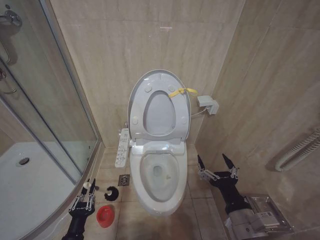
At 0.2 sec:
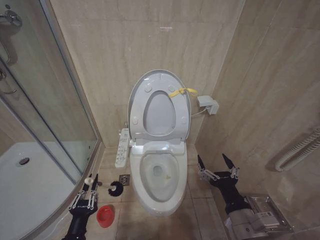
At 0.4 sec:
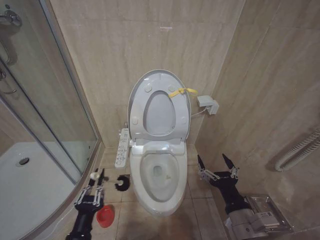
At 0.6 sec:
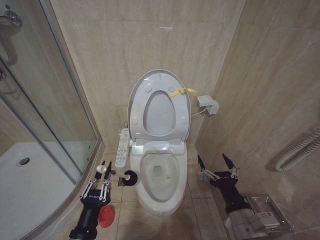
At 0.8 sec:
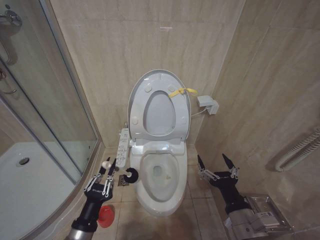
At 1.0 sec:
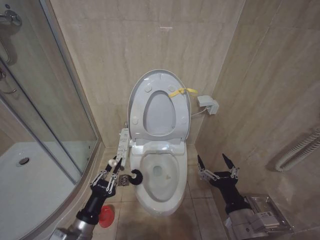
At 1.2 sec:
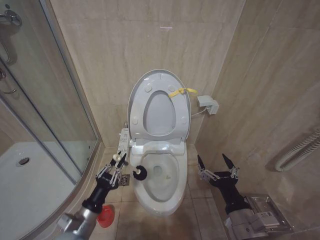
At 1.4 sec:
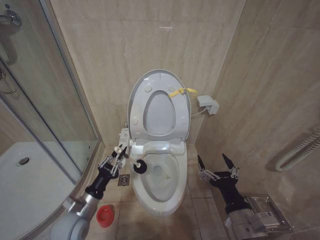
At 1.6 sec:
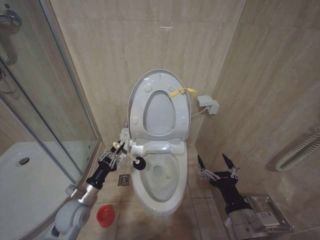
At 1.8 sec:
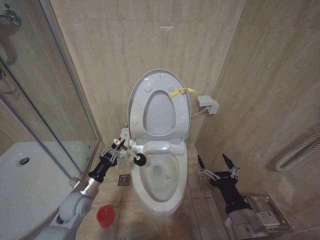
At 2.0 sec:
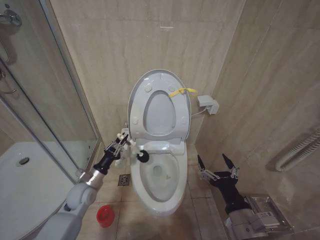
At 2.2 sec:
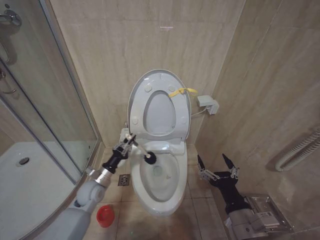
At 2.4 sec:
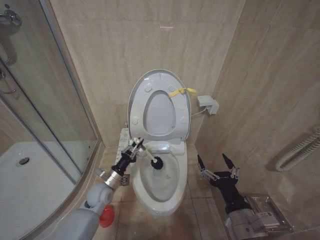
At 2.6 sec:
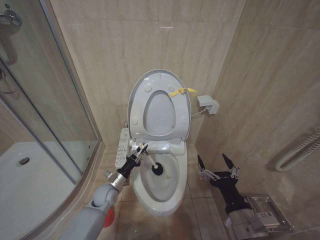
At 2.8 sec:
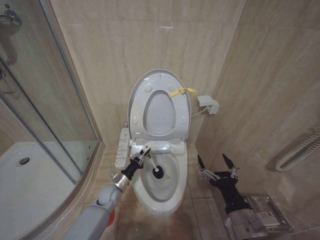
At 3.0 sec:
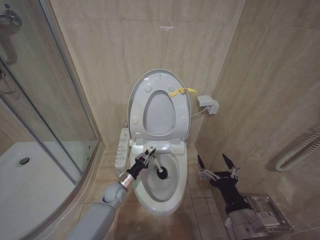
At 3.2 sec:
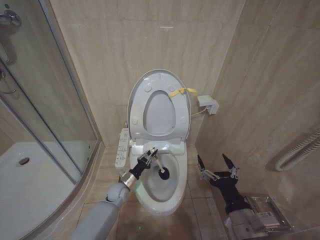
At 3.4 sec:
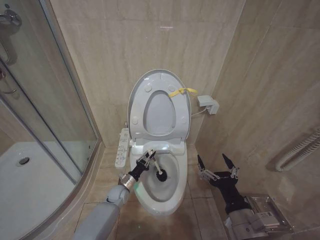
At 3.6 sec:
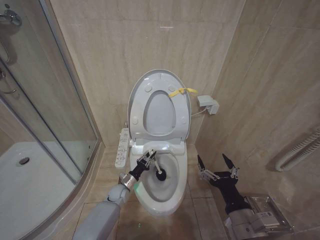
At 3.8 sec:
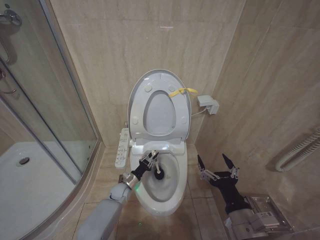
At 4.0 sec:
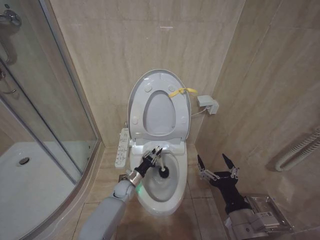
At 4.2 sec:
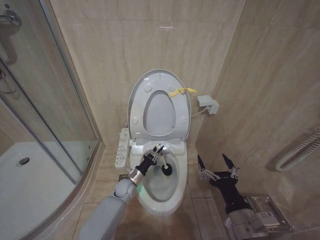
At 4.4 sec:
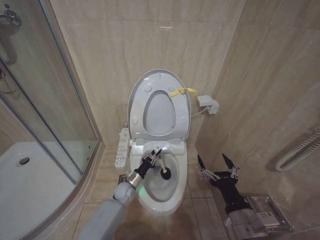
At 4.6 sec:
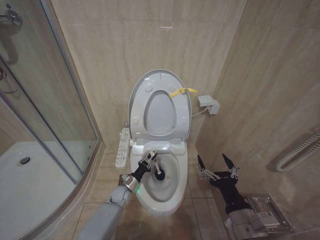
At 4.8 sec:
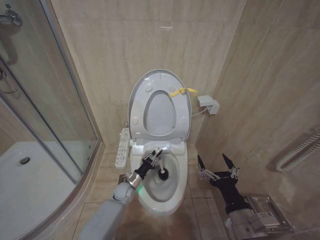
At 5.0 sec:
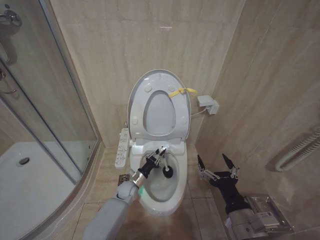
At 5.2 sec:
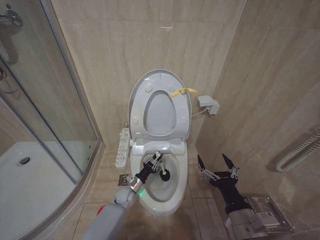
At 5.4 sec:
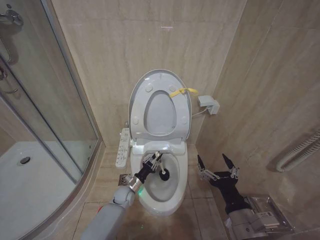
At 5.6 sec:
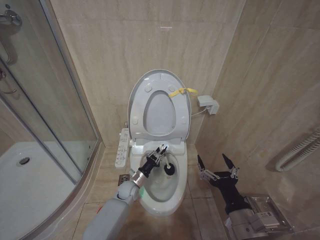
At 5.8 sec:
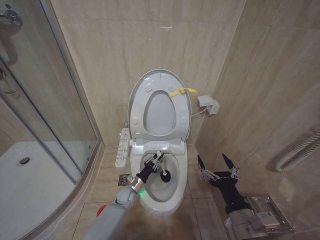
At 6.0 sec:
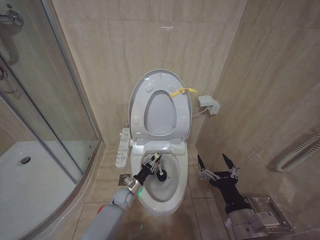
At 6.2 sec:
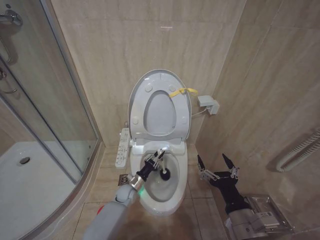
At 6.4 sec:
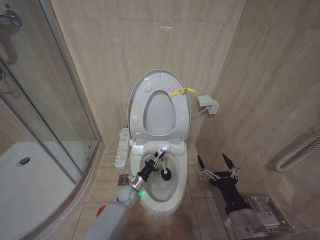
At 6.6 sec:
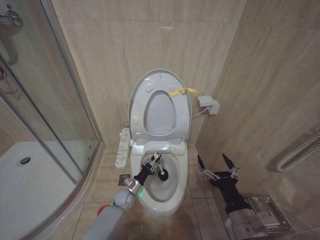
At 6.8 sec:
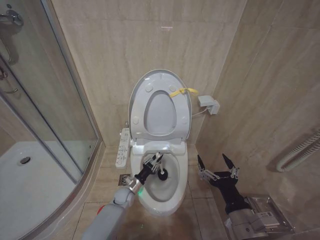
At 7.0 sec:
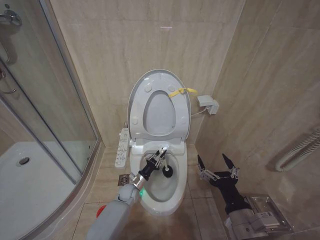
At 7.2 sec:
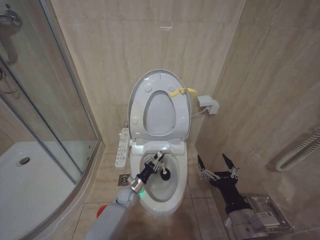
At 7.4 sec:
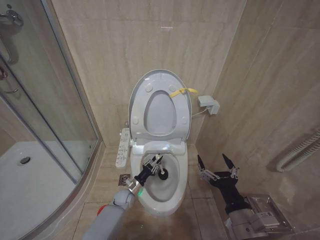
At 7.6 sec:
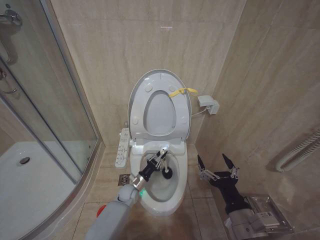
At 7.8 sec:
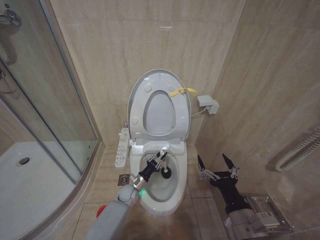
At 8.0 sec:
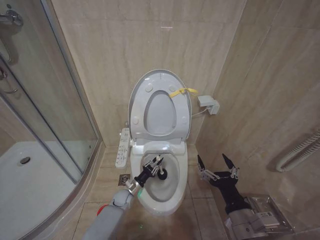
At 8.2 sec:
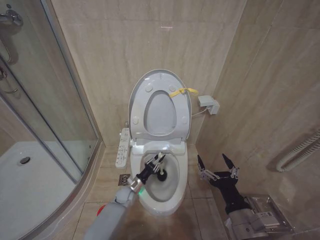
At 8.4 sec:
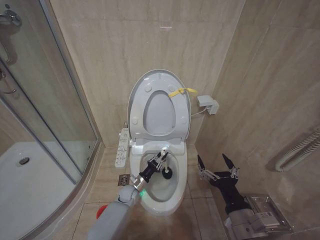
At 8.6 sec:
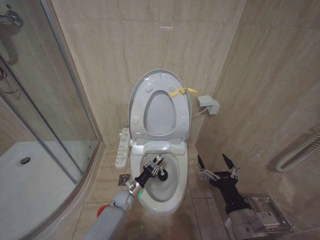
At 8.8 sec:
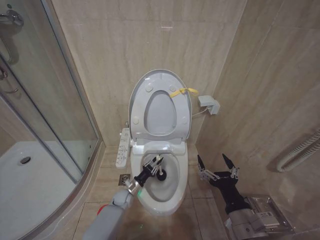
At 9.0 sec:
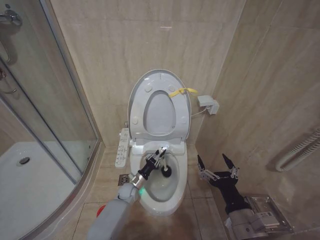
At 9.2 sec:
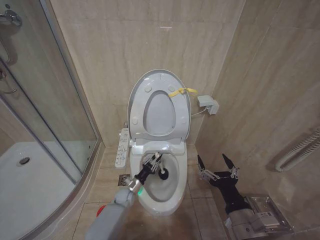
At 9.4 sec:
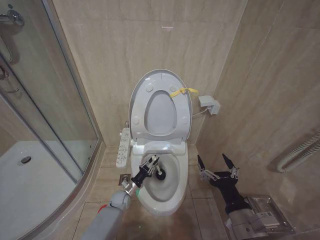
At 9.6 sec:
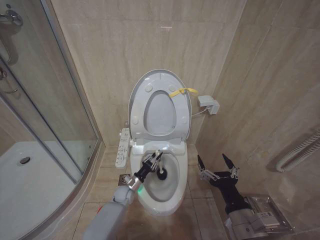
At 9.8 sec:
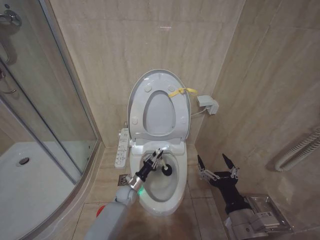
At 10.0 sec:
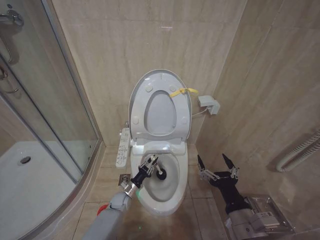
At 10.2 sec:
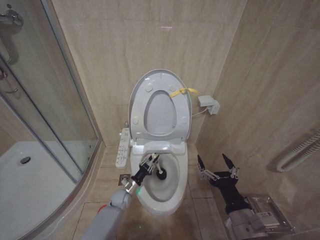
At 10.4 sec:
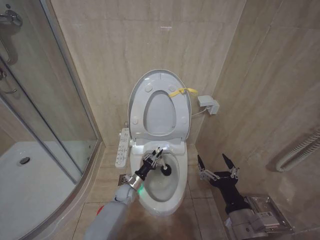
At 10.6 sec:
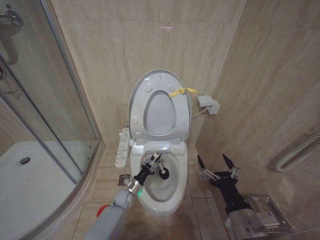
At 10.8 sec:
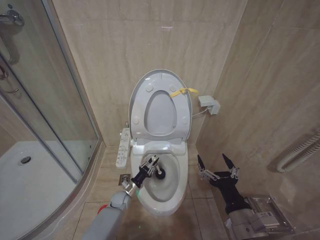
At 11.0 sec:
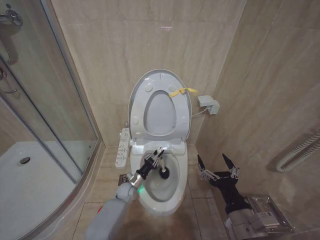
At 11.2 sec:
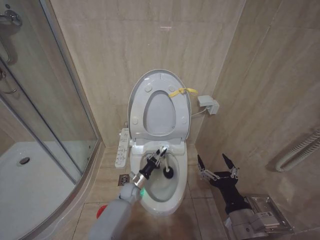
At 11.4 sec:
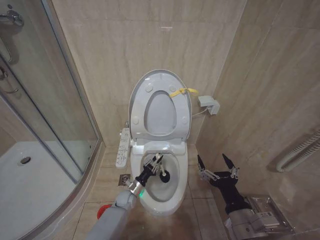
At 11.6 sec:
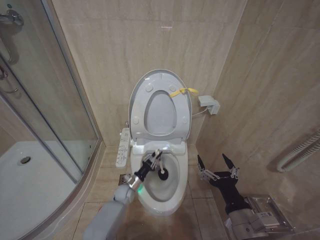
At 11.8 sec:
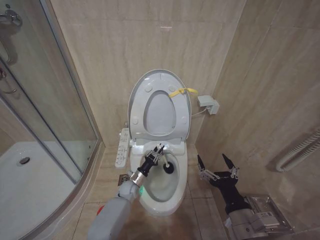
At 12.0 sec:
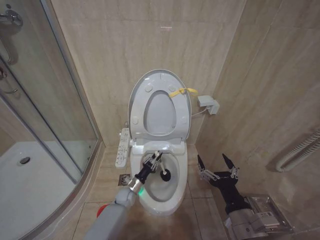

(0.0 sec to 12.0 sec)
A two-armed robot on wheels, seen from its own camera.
Task of the whole recording: Open the toilet lid, clean the toilet bowl with a toilet brush, close the toilet lid, and flush.
0.0 sec - 1.6 sec: The left gripper shifts some 15 cm forward and upward.
1.6 sec - 3.0 sec: The left gripper goes approximately 20 cm forward, downward and to the right.
3.0 sec - 4.4 sec: The left gripper moves approximately 5 cm.
4.4 sec - 6.0 sec: The left gripper moves up and down over about 5 cm, changing direction 2 times.
6.0 sec - 7.6 sec: The grippers stay close to where they were, moving slightly.

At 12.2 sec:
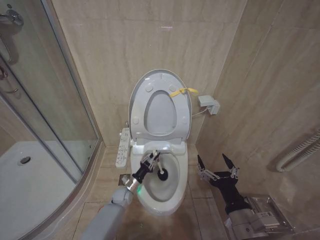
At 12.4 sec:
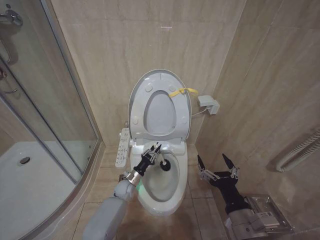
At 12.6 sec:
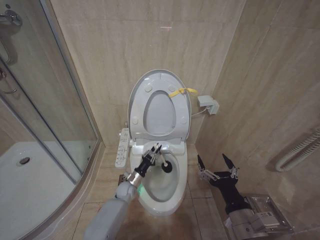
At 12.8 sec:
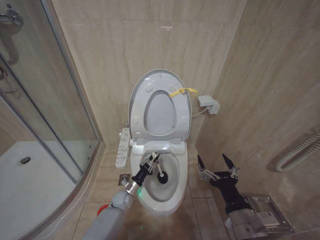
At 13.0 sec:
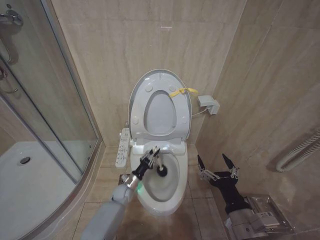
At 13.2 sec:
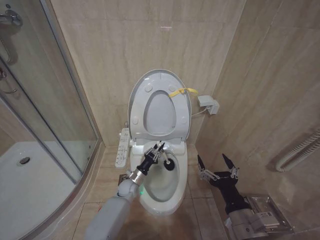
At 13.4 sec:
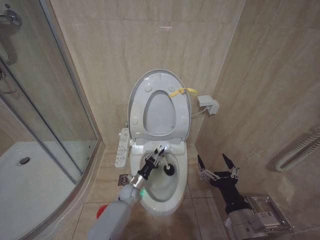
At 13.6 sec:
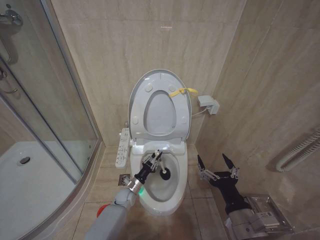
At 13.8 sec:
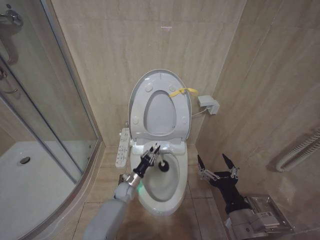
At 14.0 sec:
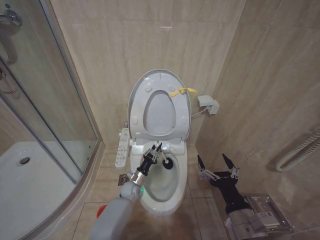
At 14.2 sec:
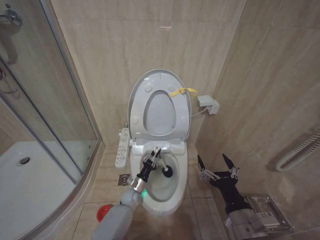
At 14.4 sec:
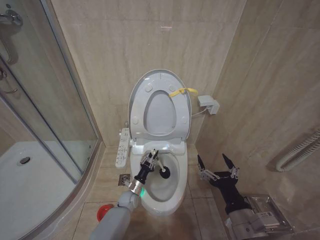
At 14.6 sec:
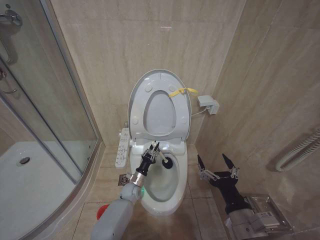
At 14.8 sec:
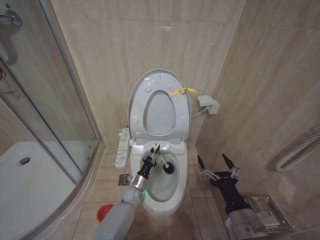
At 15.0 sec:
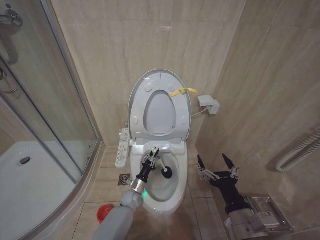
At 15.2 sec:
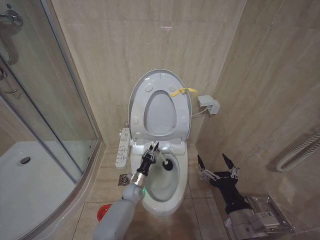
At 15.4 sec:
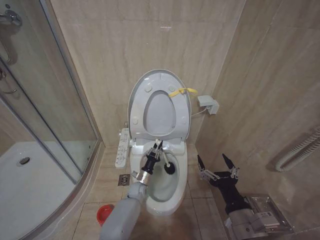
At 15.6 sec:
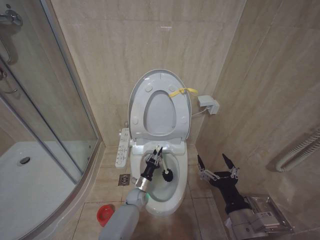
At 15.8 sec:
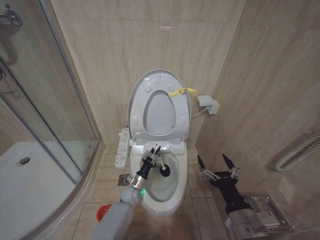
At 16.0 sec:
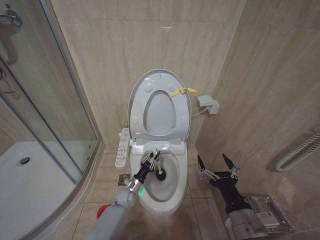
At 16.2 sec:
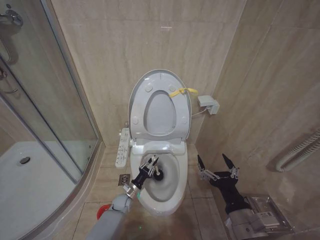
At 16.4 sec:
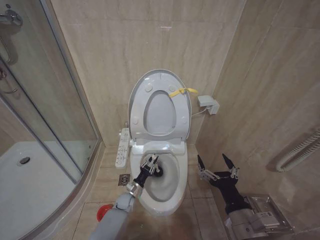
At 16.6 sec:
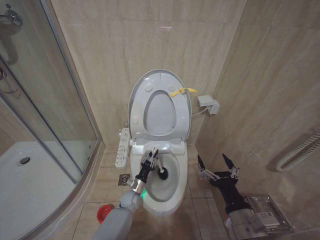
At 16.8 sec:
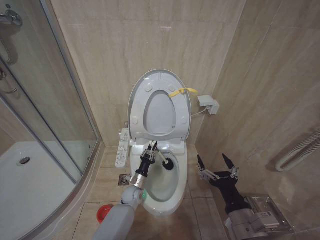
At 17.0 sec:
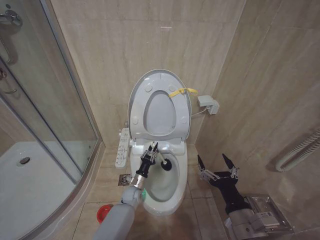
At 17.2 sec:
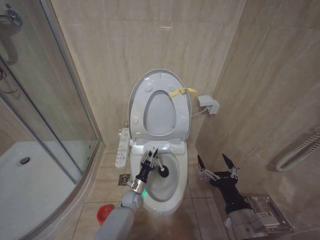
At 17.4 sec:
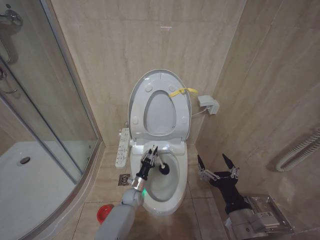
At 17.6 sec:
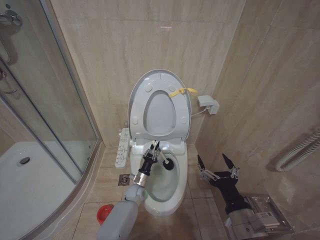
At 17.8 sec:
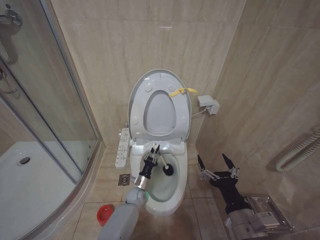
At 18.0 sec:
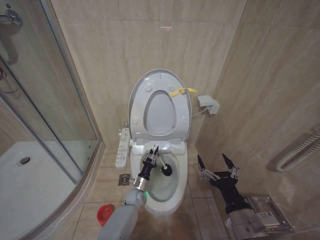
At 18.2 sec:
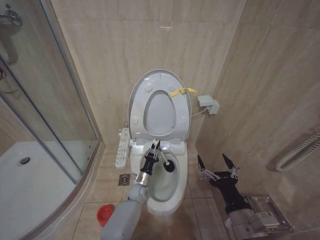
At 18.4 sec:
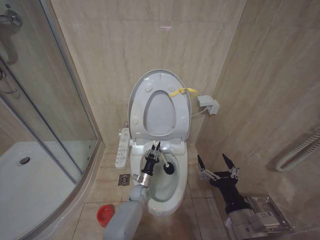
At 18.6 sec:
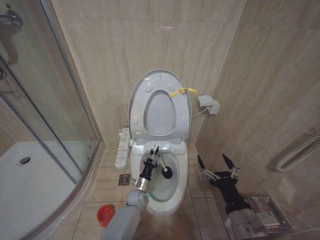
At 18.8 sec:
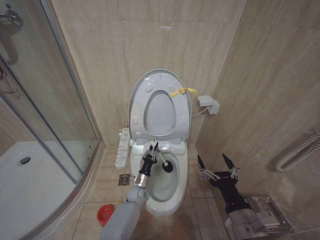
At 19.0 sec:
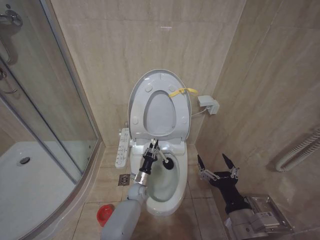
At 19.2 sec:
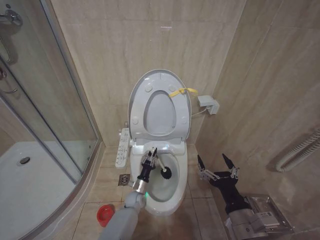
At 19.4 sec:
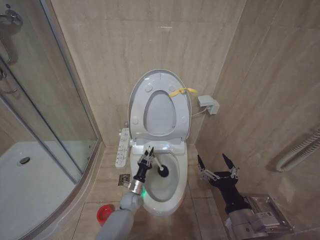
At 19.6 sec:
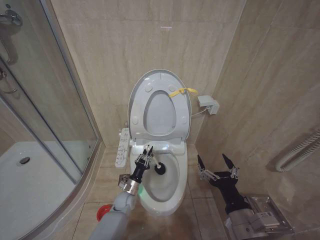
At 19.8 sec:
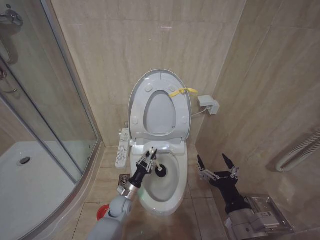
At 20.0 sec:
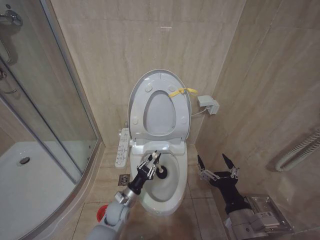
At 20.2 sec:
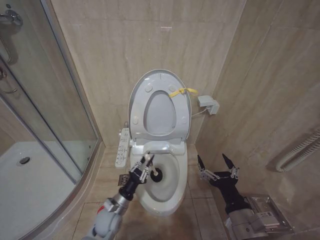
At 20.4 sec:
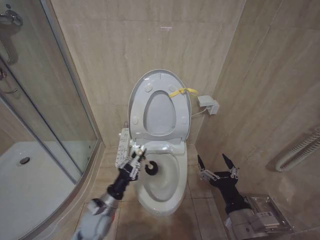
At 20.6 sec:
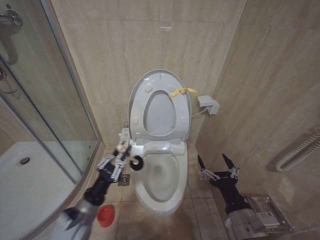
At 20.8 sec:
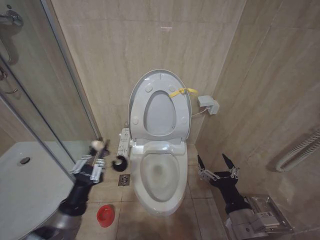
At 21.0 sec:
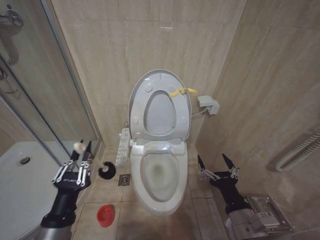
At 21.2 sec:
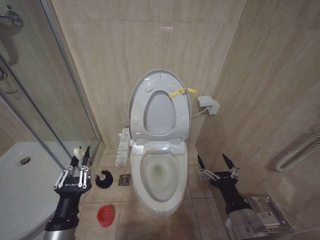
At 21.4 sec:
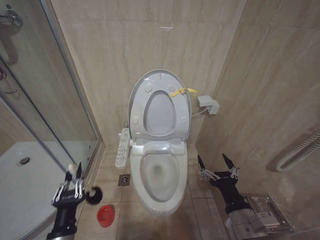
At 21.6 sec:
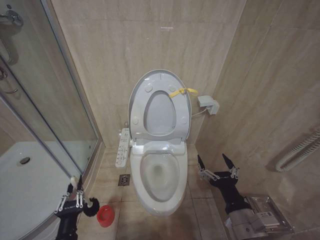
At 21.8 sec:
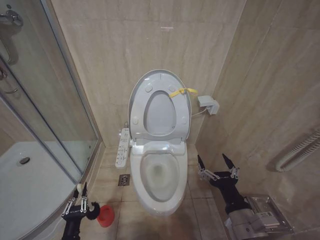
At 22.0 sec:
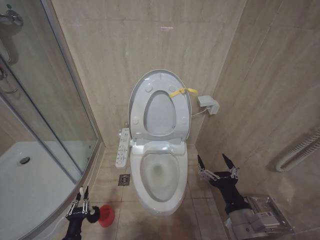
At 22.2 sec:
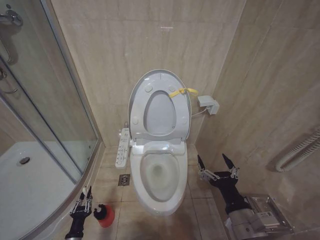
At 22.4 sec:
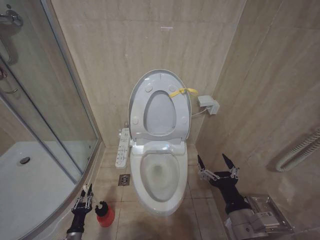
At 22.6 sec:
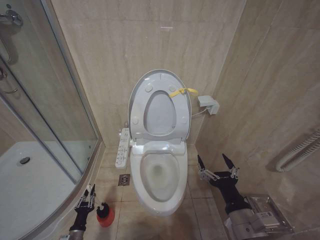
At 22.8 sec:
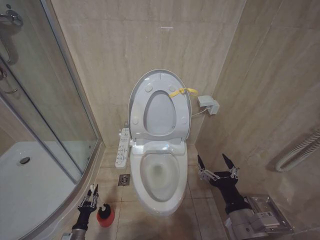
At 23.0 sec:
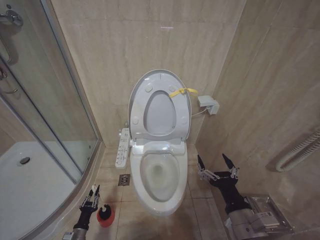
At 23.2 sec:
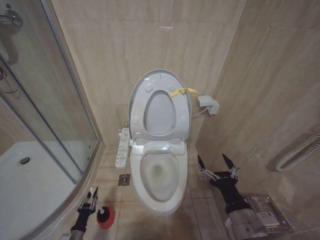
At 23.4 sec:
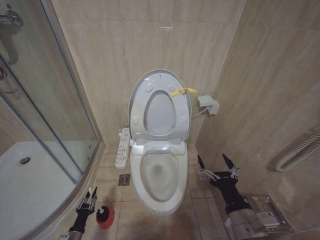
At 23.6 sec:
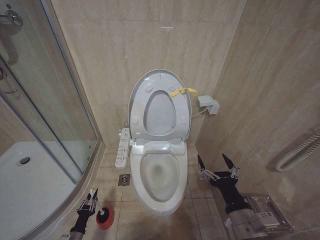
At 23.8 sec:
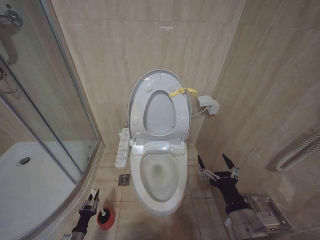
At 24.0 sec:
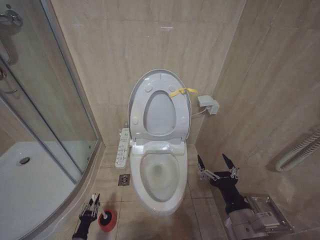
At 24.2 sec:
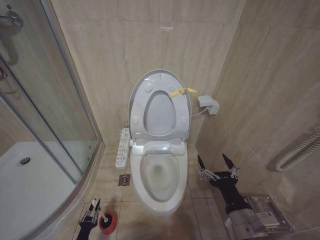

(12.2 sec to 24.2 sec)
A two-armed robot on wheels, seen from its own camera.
Task of the whole recording: Open the toilet lid, clean the toilet bowl with a toilet brush, close the toilet lid, and flush.
13.8 sec - 15.2 sec: There are only small adjustments of the grippers.
15.2 sec - 16.6 sec: There are only small adjustments of the grippers.
16.6 sec - 18.2 sec: The left gripper changes place by some 5 cm.
18.2 sec - 19.8 sec: The left gripper heads to the left and backward, covering some 10 cm.
19.8 sec - 21.2 sec: The left gripper moves backward and upward, approximately 35 cm.
21.2 sec - 22.6 sec: The left gripper shifts roughly 35 cm downward.
22.6 sec - 24.2 sec: The left gripper heads downward, covering some 5 cm.
